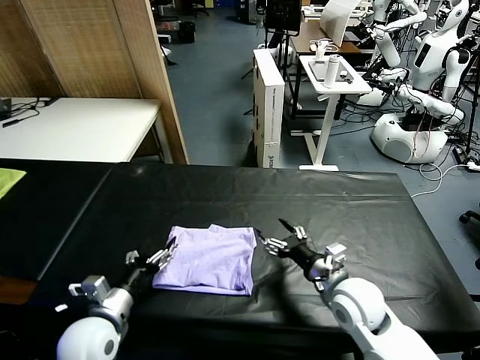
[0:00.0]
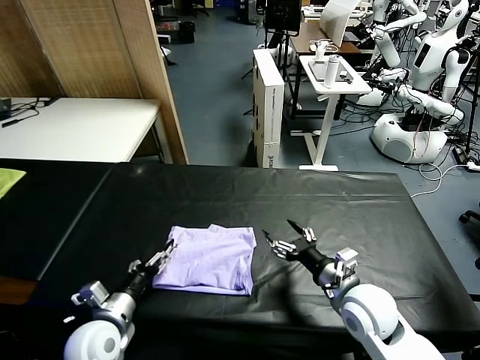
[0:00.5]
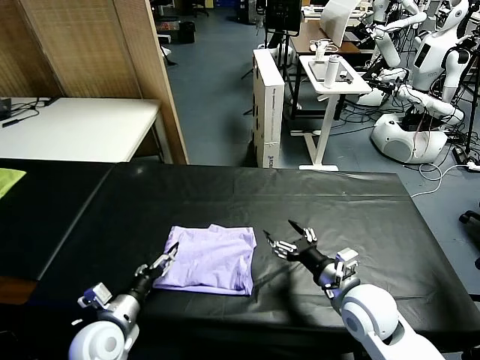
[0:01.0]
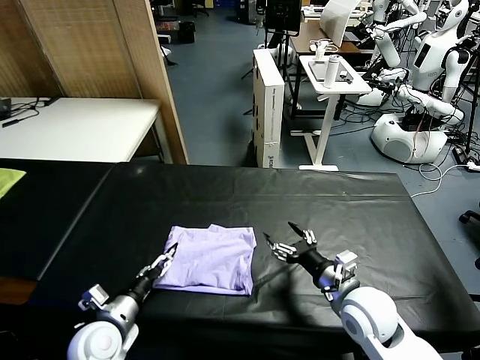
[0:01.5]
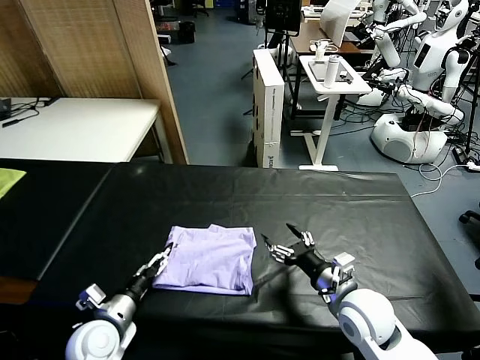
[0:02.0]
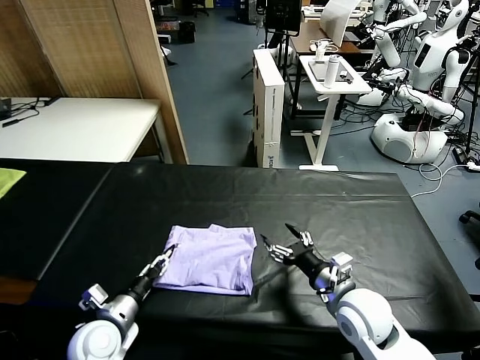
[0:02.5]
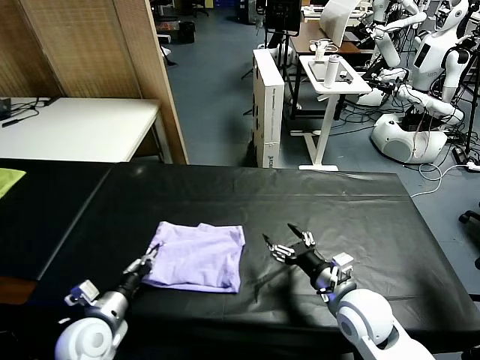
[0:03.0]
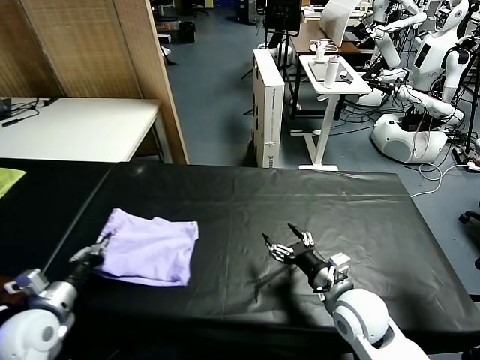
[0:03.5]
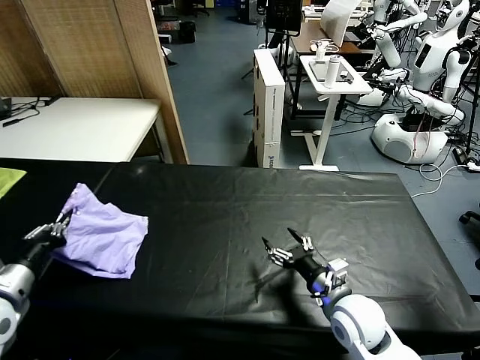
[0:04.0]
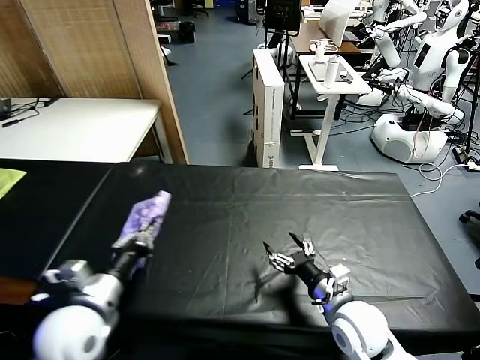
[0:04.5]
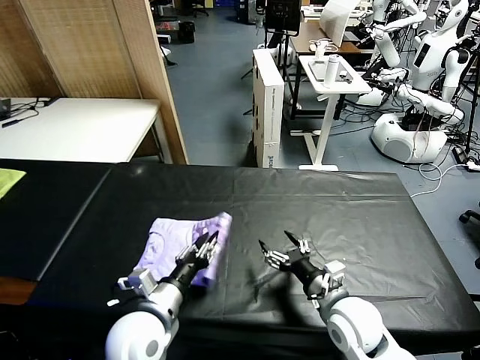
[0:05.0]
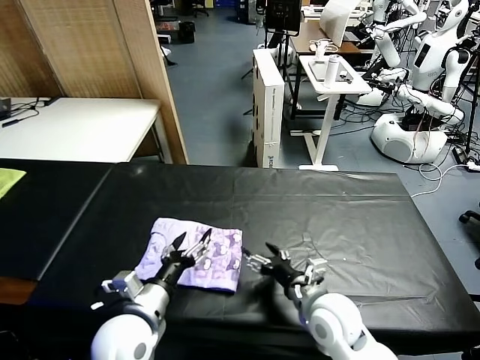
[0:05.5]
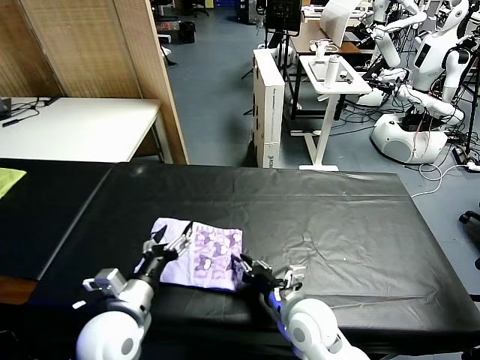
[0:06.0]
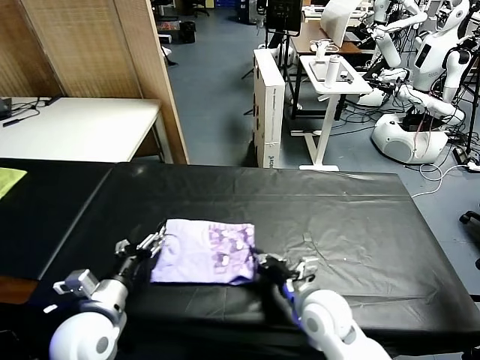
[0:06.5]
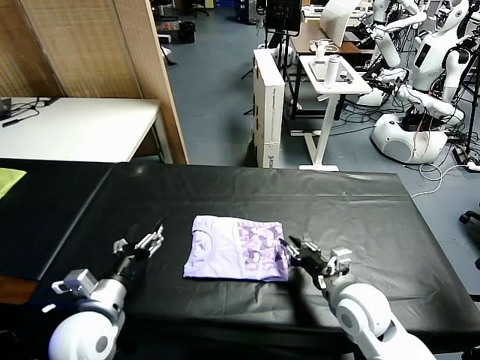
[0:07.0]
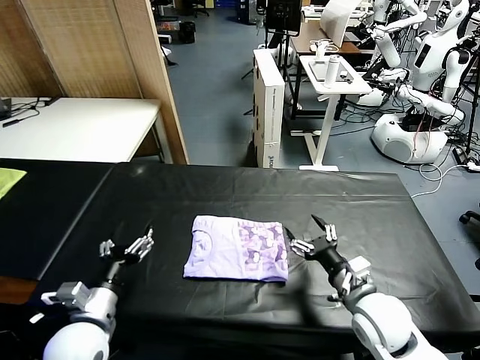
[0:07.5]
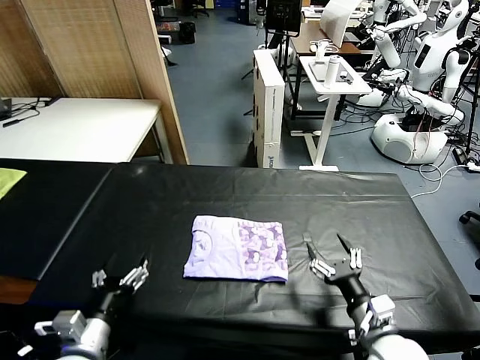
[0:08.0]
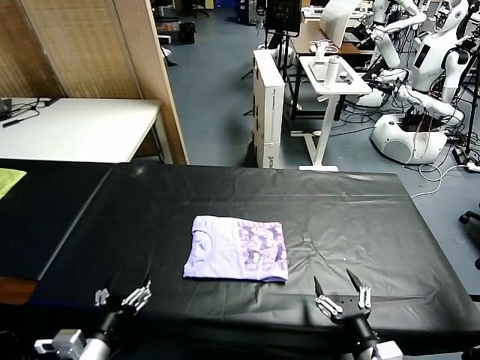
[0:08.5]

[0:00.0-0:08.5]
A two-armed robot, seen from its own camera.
Task of the whole recording: fold and organize the clothes.
Step, 0.0 to 5.0 s: Flip the folded clothes over with left gripper.
Step, 5.5 to 7.0 s: Drag the clothes to the center of the table.
0.0 to 2.0 s: The left gripper travels downward by approximately 5 cm.
2.0 to 4.0 s: The left gripper shifts some 20 cm upward and to the left, and closes.
4.0 to 6.5 s: The left gripper goes some 15 cm to the right, and opens up. Meanwhile the right gripper travels to the left by about 5 cm, and closes.
6.5 to 8.5 s: The left gripper goes roughly 10 cm backward, while the right gripper goes roughly 20 cm backward and to the right, and opens up.

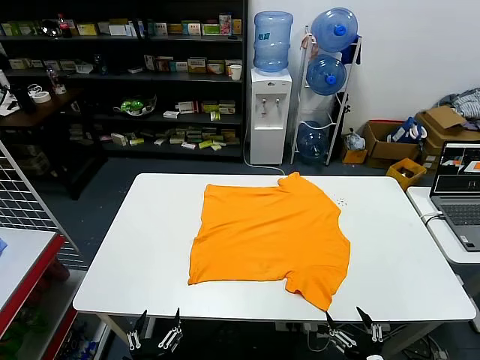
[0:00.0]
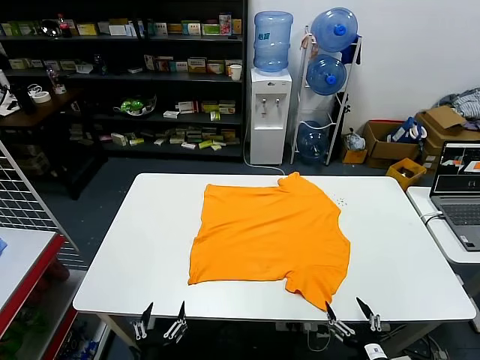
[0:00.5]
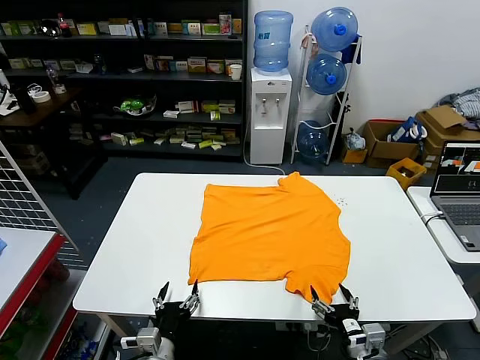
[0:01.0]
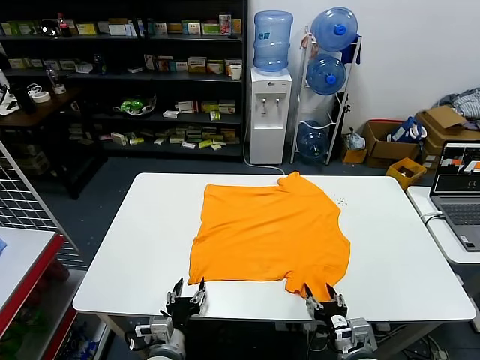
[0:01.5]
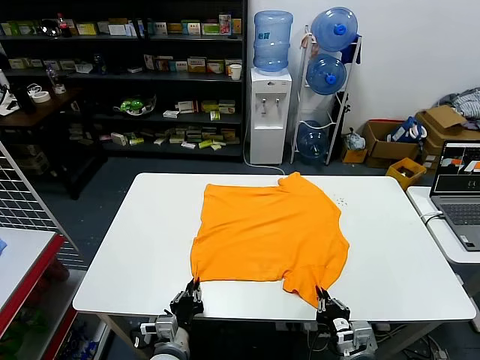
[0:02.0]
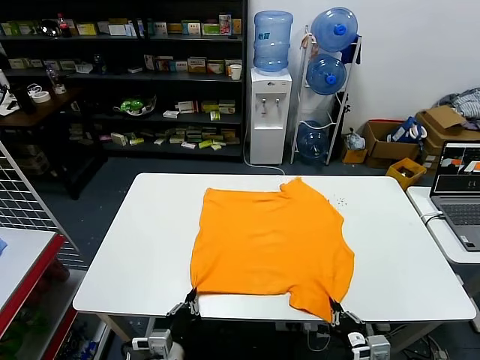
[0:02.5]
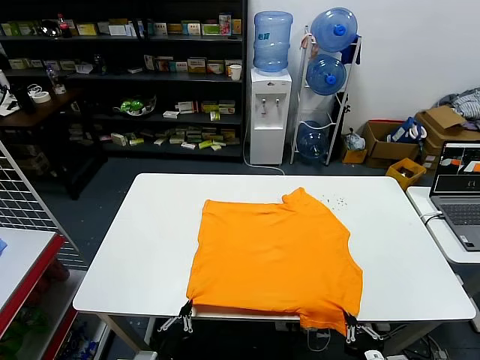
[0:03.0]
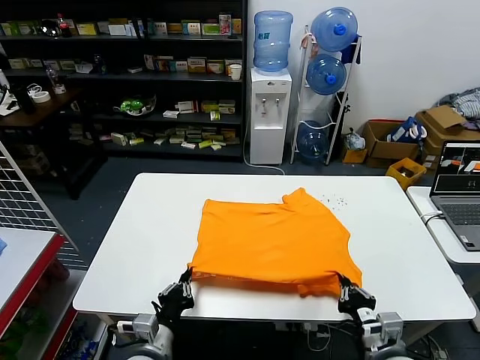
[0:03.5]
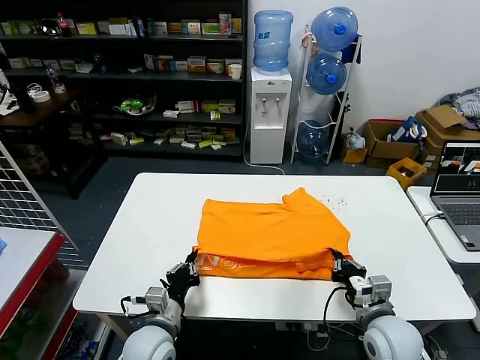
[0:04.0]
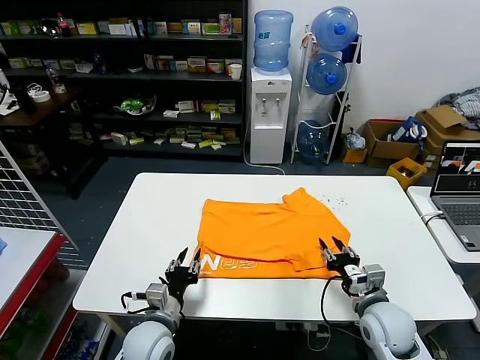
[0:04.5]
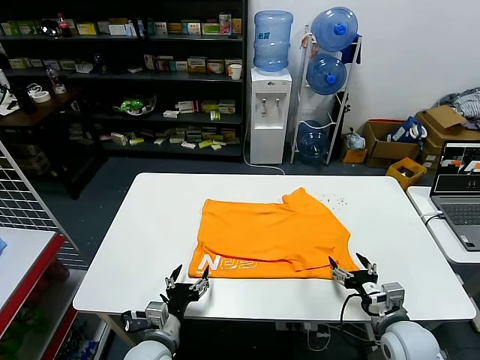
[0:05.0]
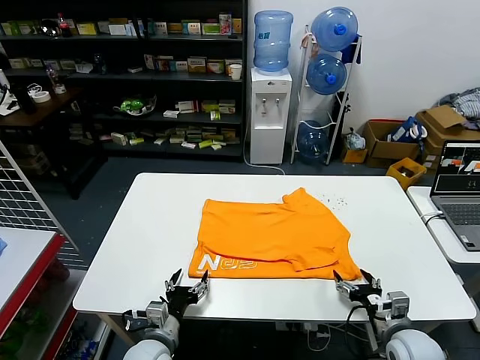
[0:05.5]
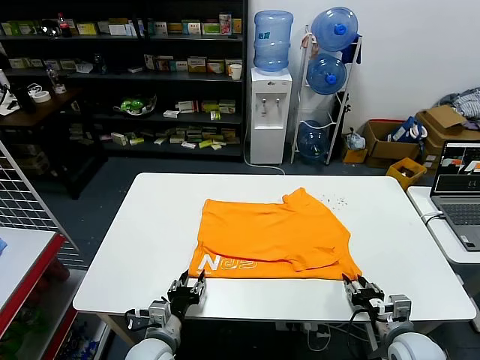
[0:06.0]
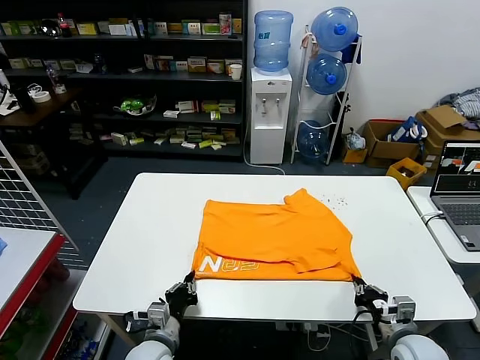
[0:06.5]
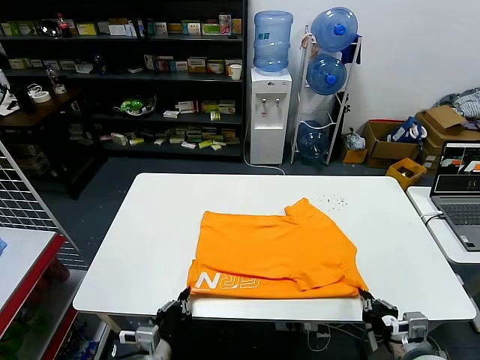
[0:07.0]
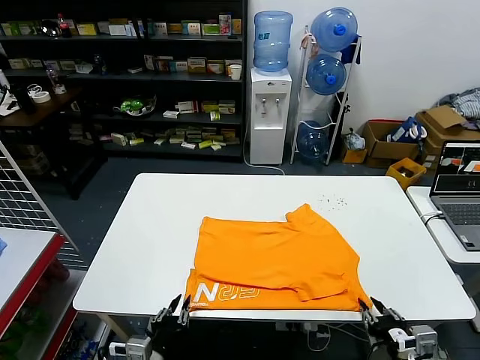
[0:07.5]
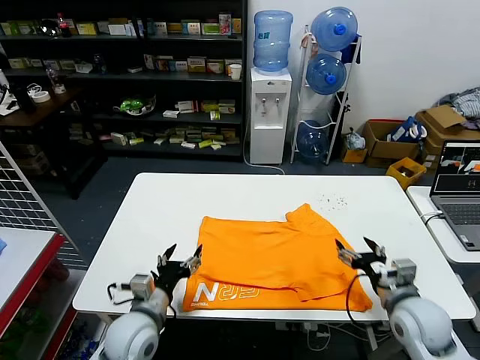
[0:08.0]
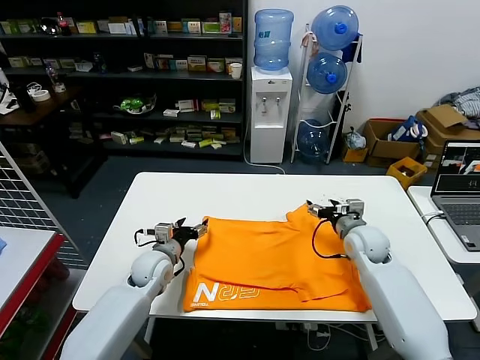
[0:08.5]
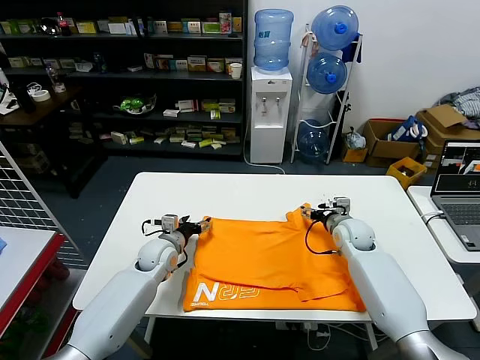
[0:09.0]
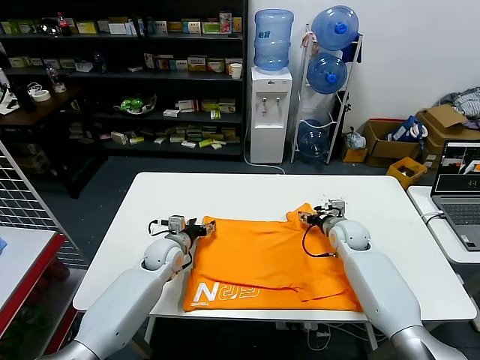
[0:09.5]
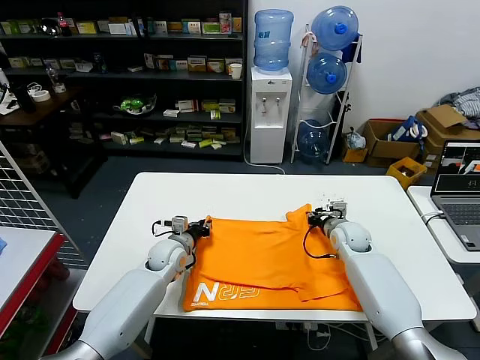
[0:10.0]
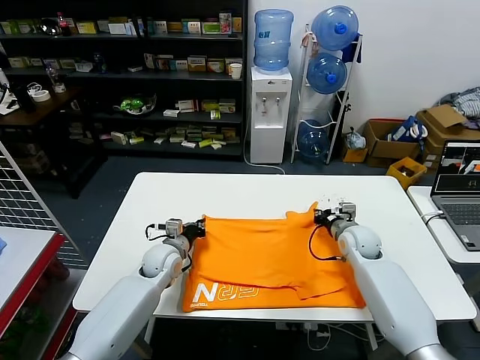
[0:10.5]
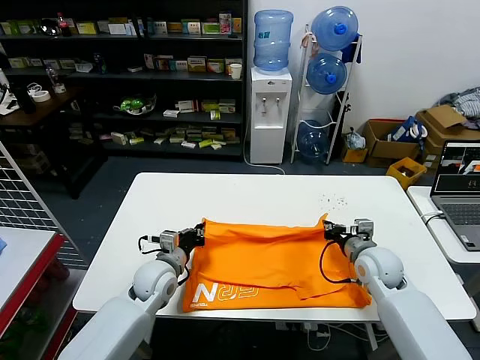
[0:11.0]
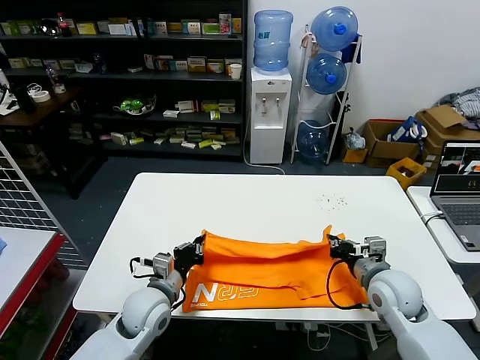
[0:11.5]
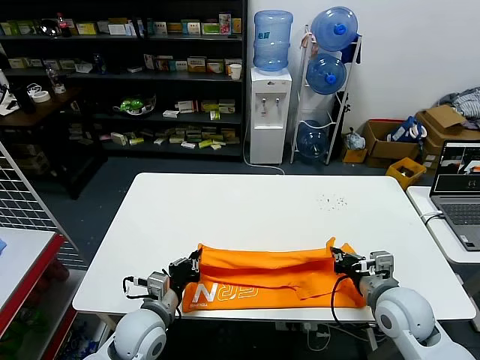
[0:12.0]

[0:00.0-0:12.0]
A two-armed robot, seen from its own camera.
Task of the whole recording: fold and organize the clothes.
Step, 0.0 to 2.0 s: use both grippers simultaneously to clamp the lower edge of the clothing fabric.
Step, 2.5 to 4.5 s: use both grippers to drag the lower edge of the fabric forward and fold it over the upper edge.
Step, 5.0 to 7.5 s: Drag the clothes downward with both gripper.
Step, 8.0 to 10.0 s: use both grippers simultaneously to clamp the upper edge of the clothing fabric.
2.0 to 4.0 s: The left gripper goes roughly 5 cm upward, and moves some 10 cm backward and comes back; the right gripper heads upward and forward, covering approximately 10 cm.
4.0 to 6.0 s: The right gripper is displaced to the right and downward by some 10 cm, and opens up. The left gripper opens up.
6.0 to 8.0 s: The right gripper travels upward and forward by approximately 10 cm, and opens up; the left gripper heads upward, covering about 10 cm, moves some 10 cm backward and comes back, and closes, then opens again.
8.0 to 10.0 s: Both grippers move forward, approximately 20 cm. The left gripper closes, while the right gripper closes up.
10.0 to 12.0 s: The two grippers go approximately 20 cm backward.

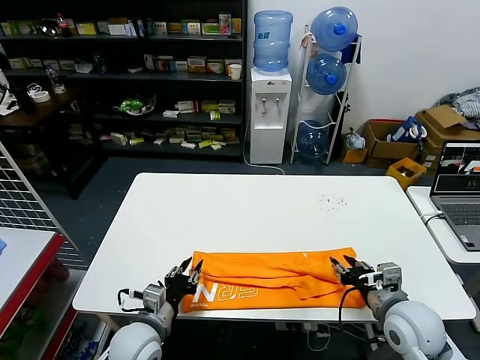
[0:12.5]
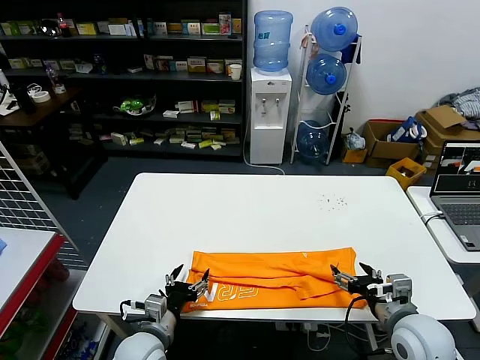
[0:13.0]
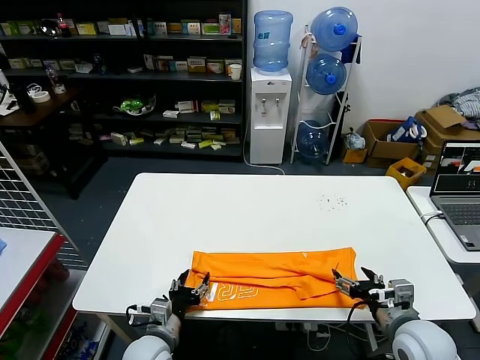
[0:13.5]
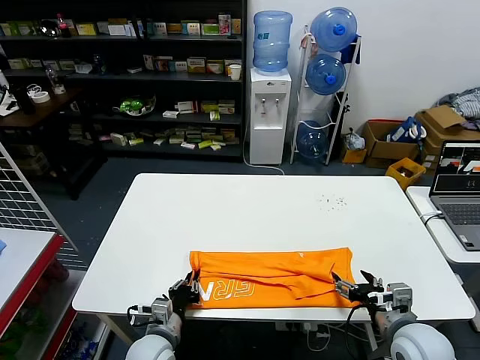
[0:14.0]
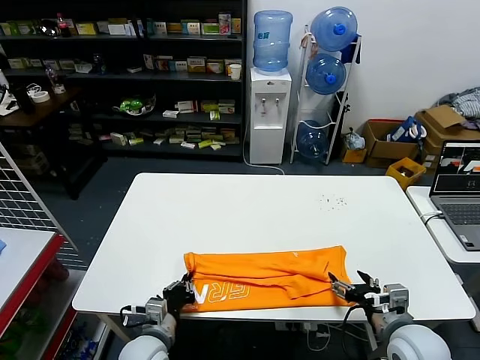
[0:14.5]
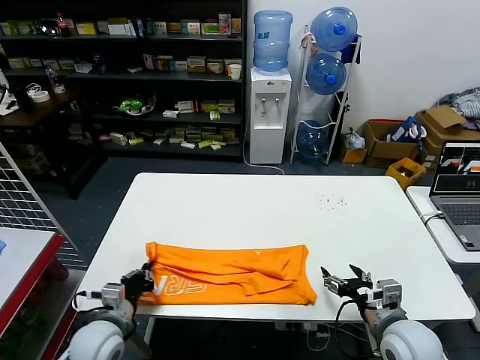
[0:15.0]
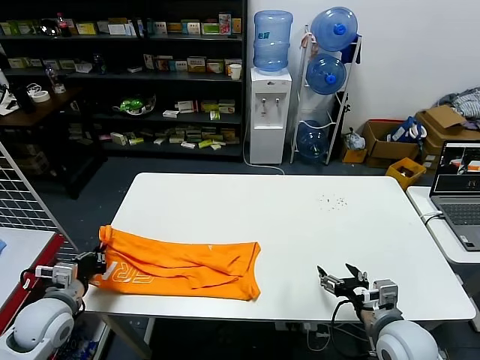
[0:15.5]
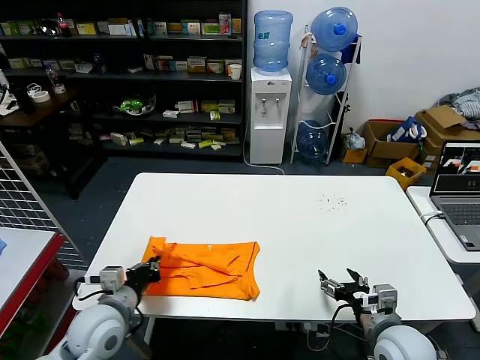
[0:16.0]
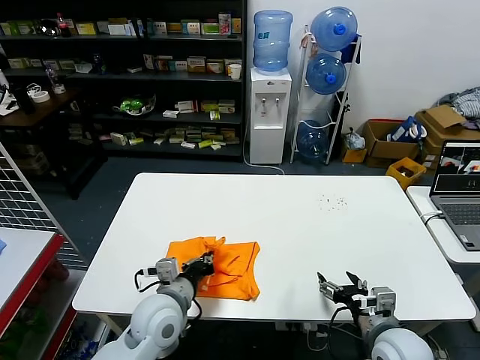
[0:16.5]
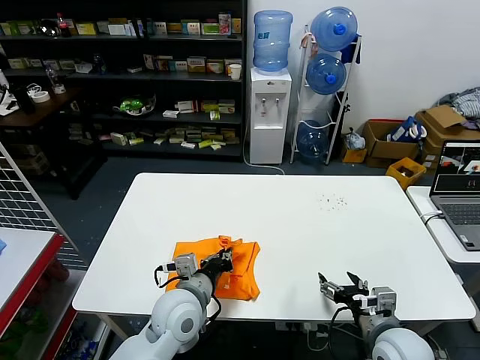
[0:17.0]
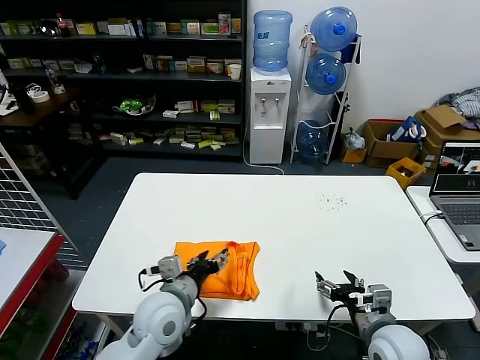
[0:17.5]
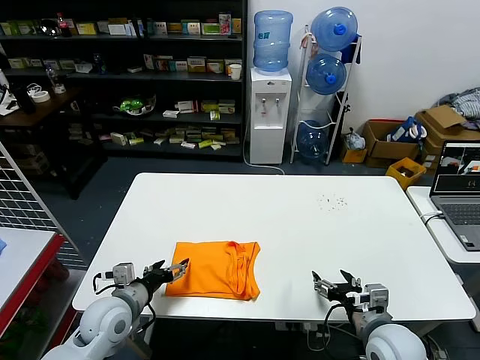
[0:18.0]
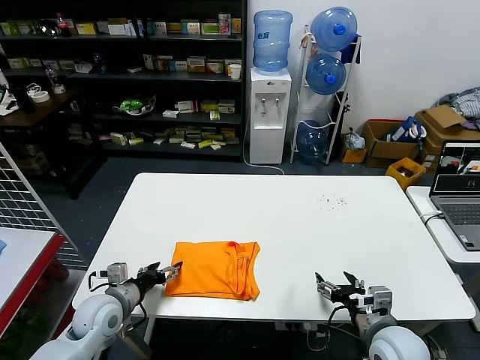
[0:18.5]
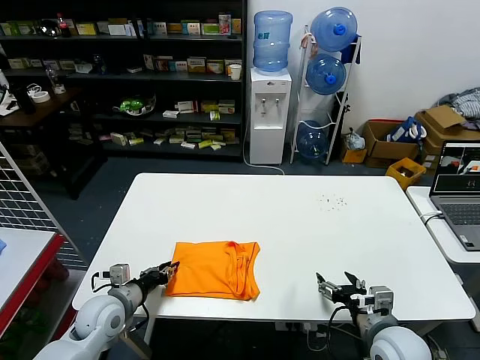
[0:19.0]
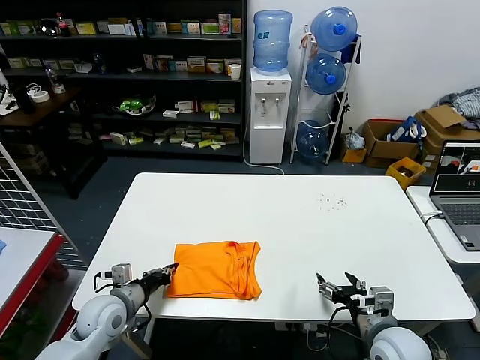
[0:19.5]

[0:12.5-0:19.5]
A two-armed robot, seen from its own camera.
Task of the whole recording: fold and organize the clothes.
Step, 13.0 to 14.5 s: use the left gripper to clamp the left edge of the fabric.
Step, 15.0 to 17.0 s: use the left gripper to drag the left edge of the fabric to the left and folds it over the right edge.
12.5 to 14.5 s: The right gripper opens its fingers. The left gripper changes place by approximately 5 cm, and closes.
14.5 to 16.0 s: The left gripper is displaced upward and to the left by about 15 cm.
16.0 to 17.5 s: The left gripper heads to the right, covering roughly 15 cm, and opens its fingers.
17.5 to 19.5 s: The left gripper goes approximately 15 cm to the left and downward, and closes up.
